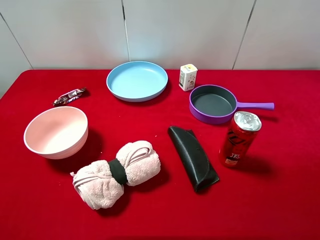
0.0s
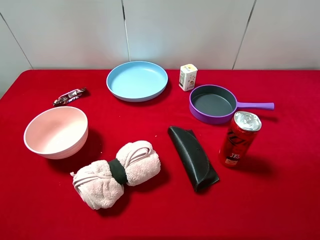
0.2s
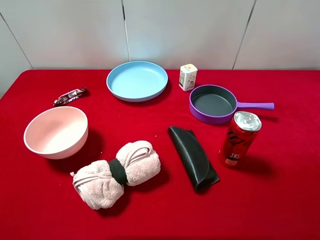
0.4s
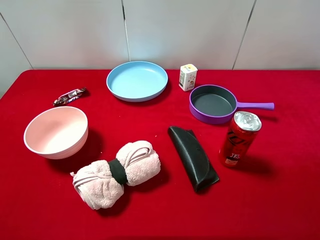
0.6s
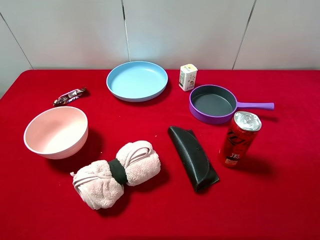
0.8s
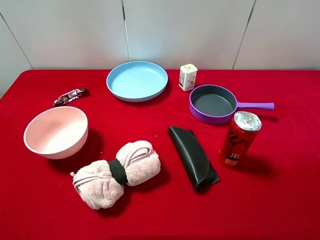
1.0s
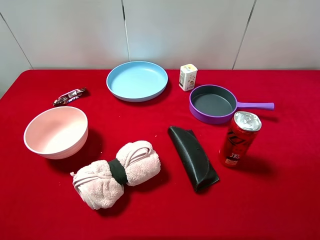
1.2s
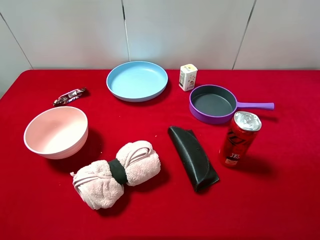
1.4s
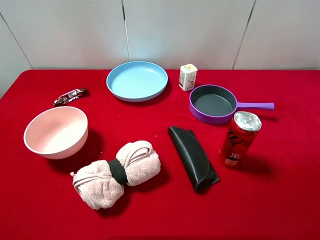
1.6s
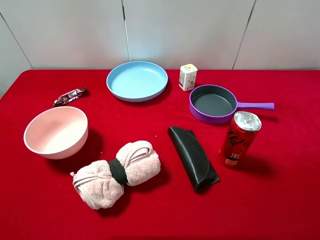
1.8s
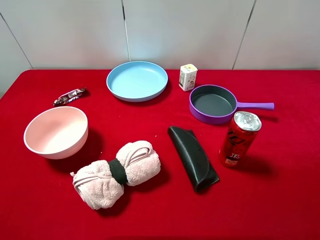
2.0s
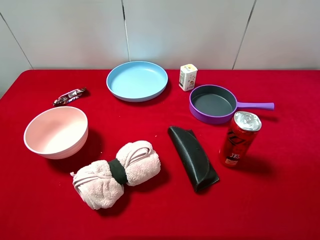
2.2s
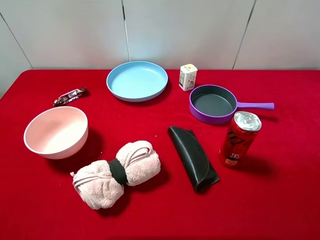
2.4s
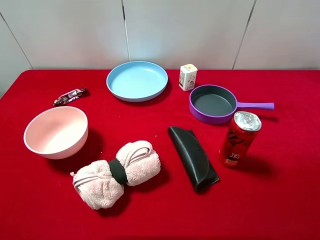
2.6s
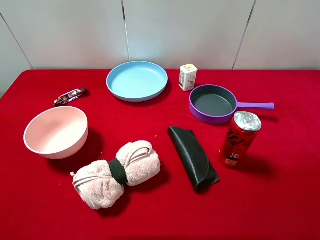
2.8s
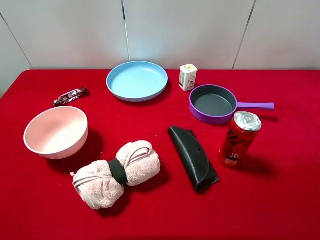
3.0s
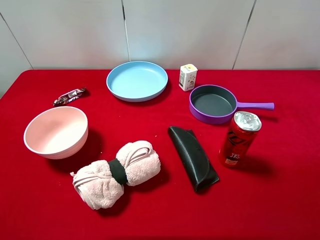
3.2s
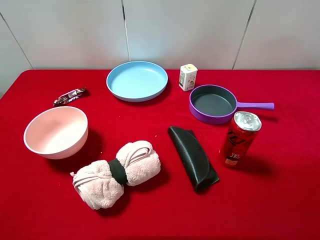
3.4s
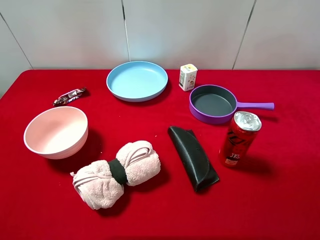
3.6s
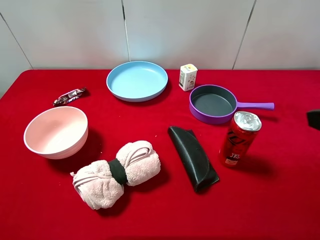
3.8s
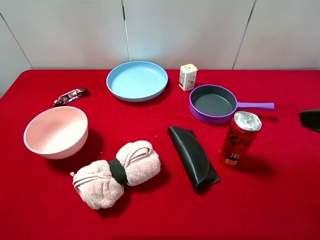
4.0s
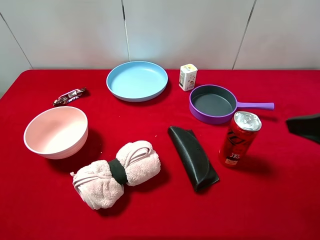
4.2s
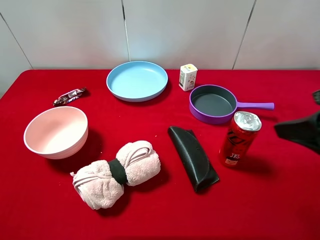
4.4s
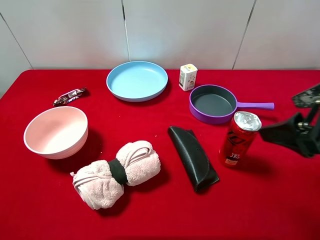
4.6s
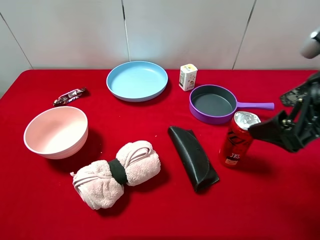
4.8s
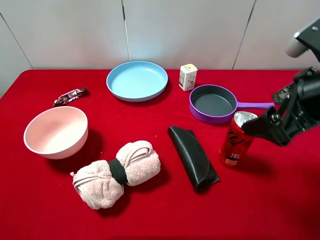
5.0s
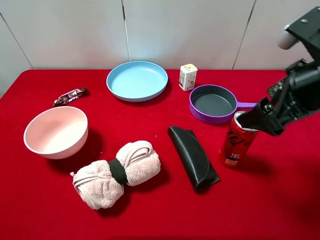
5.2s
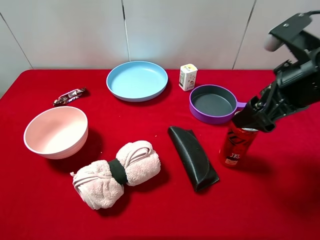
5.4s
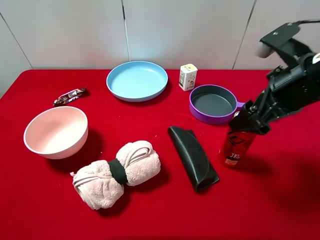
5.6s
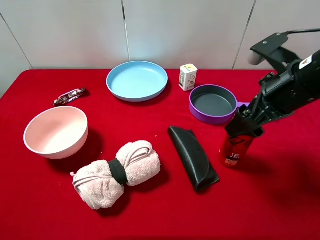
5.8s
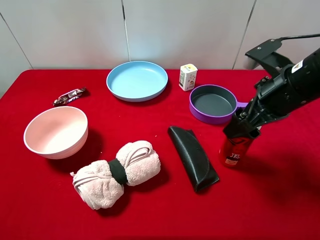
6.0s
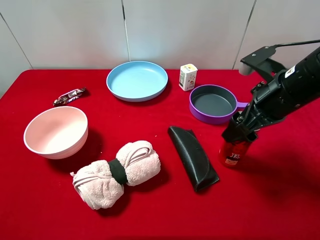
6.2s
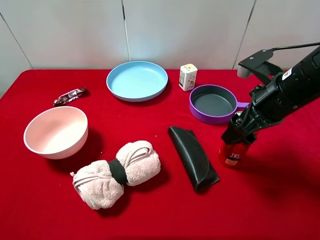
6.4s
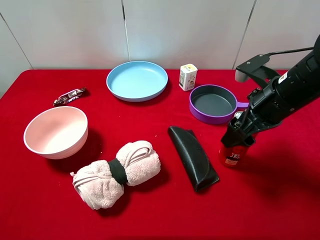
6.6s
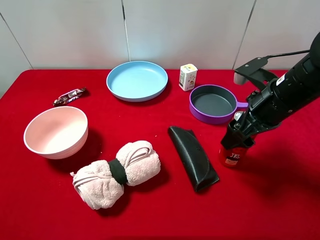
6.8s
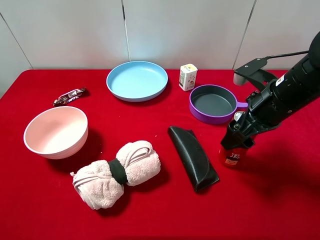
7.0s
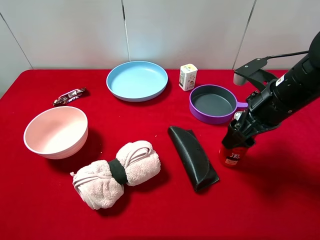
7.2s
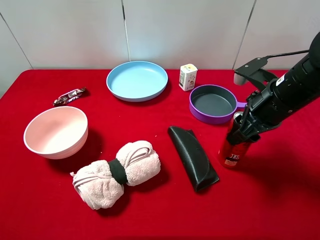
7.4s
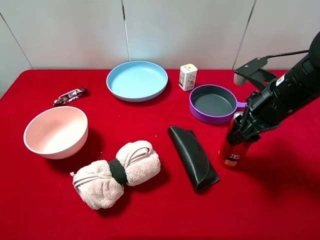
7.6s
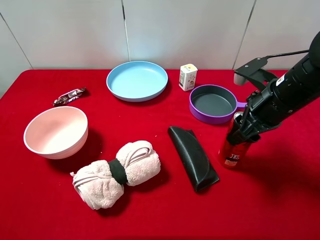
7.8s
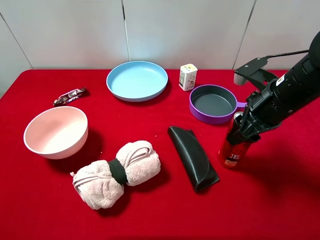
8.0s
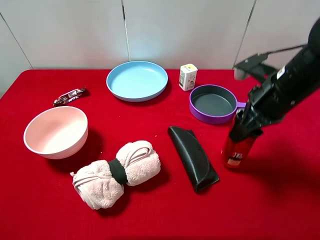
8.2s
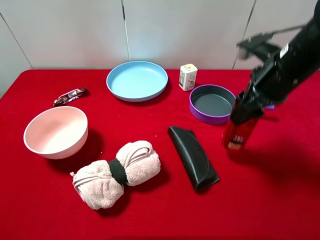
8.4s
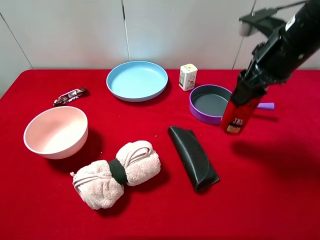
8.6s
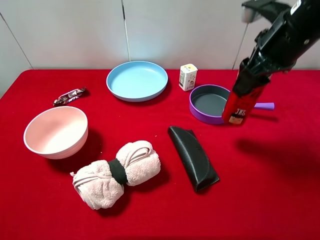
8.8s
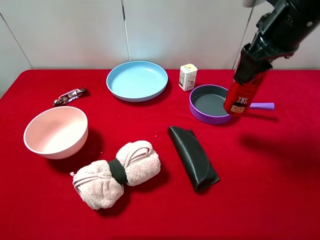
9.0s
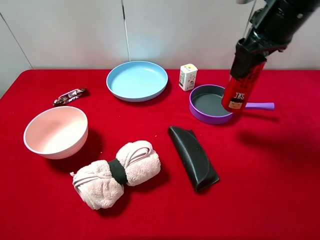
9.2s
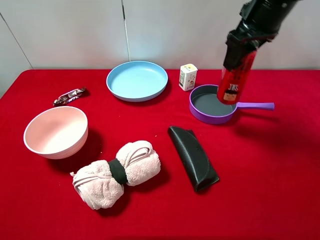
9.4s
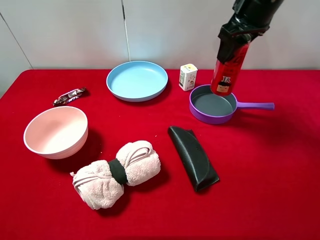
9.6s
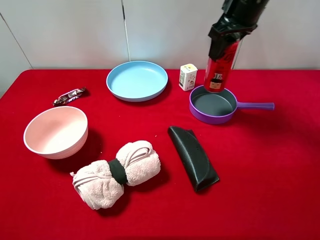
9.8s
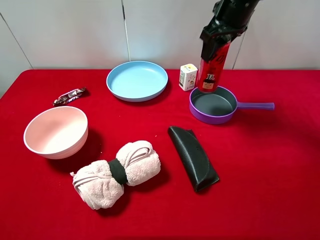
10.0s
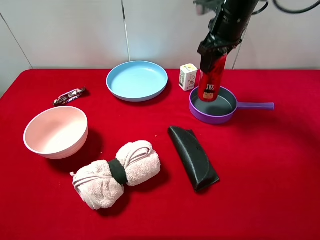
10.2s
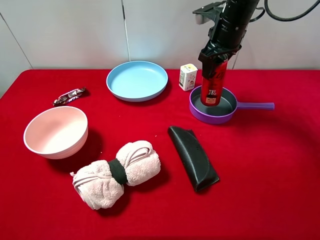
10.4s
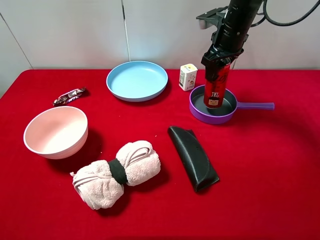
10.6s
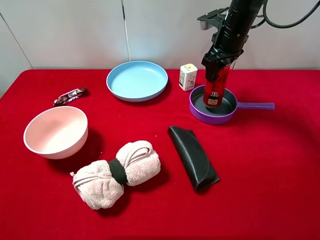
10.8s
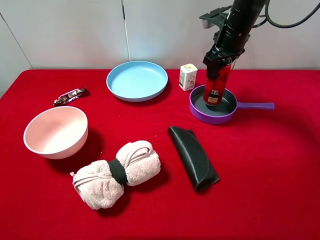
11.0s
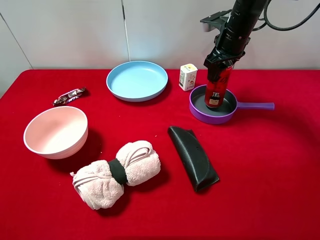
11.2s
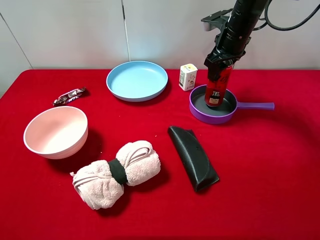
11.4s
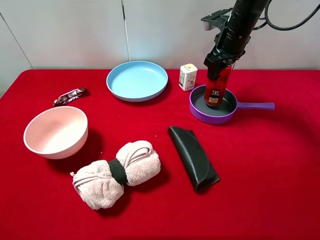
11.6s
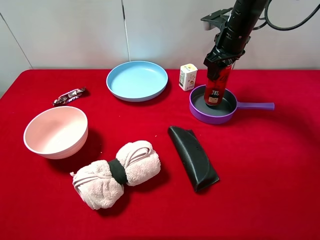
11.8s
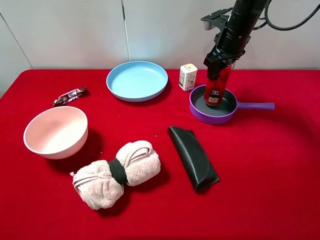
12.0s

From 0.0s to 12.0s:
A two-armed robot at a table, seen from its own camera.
Task of the whole recording: pick up an item with a gripper and place it in a random container on the desktop.
From 0.0s to 1.6s: Neither gripper changes place.
From 3.0s to 4.4s: The right gripper travels forward by roughly 10 cm.
From 4.4s to 6.0s: The right gripper travels forward and downward by roughly 10 cm.
From 6.0s to 7.6s: The right gripper closes up.
From 7.6s to 9.0s: The right gripper travels upward and forward by roughly 15 cm.
From 9.0s to 10.4s: The right gripper heads forward and downward, covering roughly 15 cm.
From 10.4s to 12.0s: There are only small adjustments of the grippers.

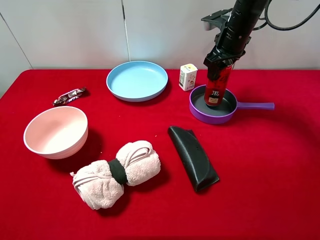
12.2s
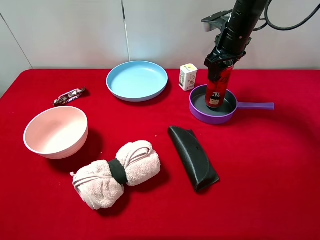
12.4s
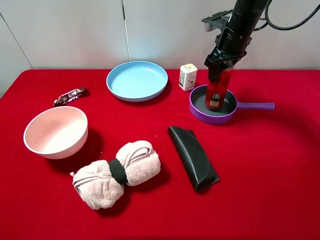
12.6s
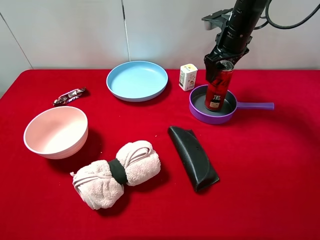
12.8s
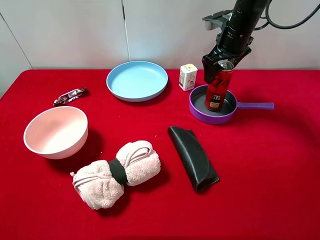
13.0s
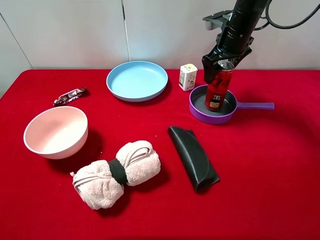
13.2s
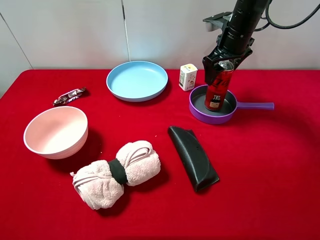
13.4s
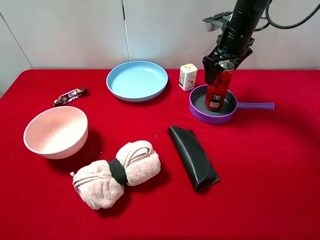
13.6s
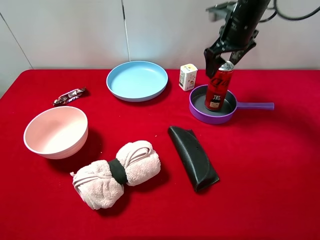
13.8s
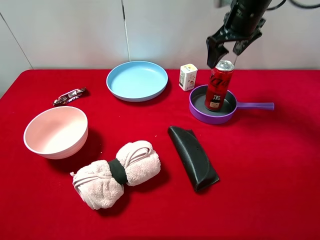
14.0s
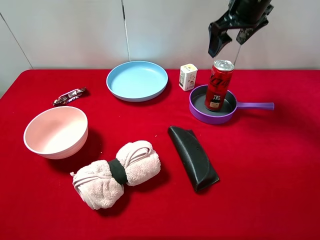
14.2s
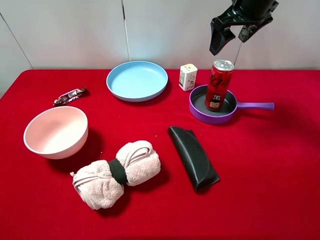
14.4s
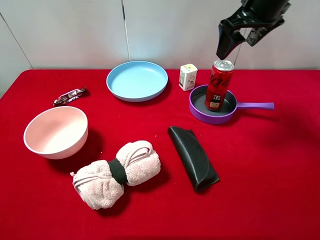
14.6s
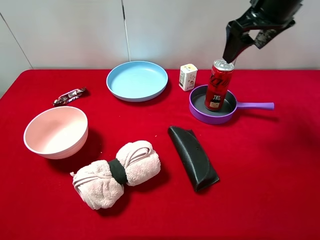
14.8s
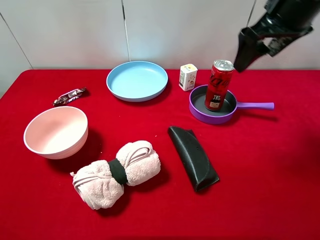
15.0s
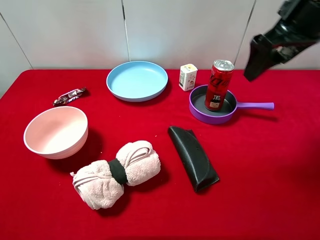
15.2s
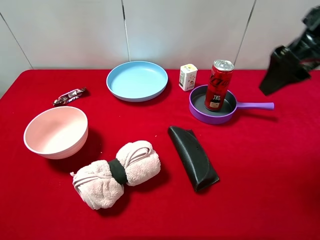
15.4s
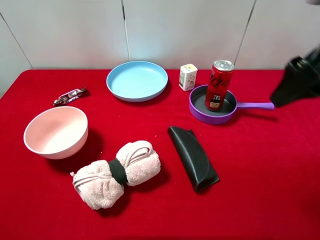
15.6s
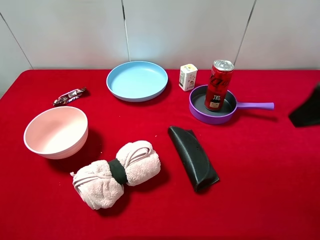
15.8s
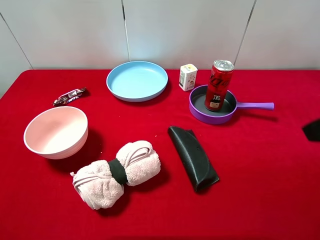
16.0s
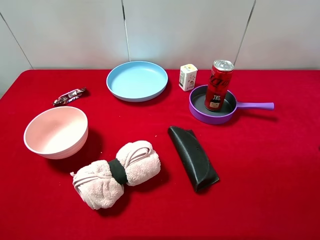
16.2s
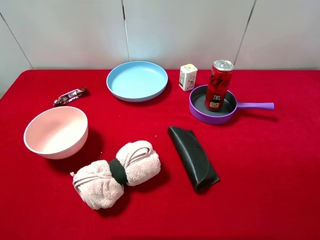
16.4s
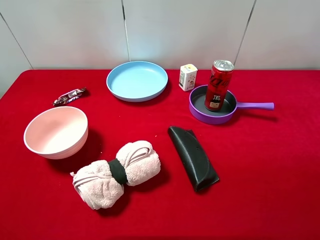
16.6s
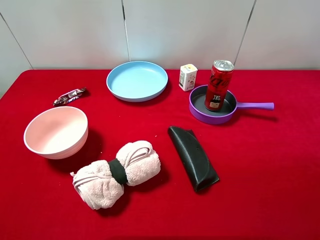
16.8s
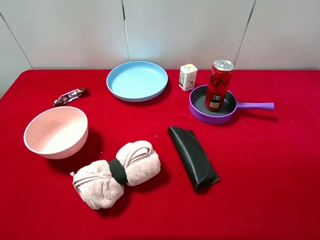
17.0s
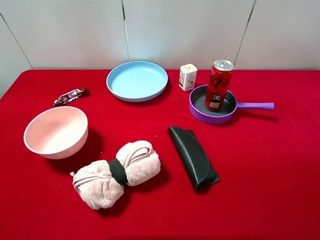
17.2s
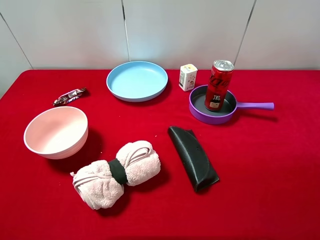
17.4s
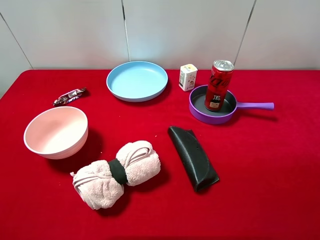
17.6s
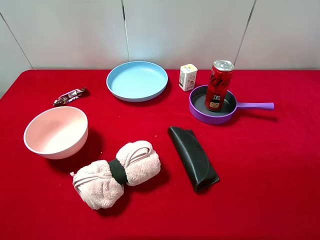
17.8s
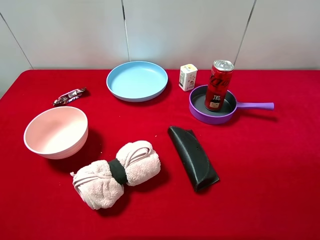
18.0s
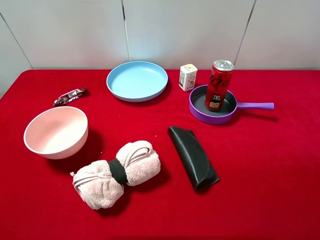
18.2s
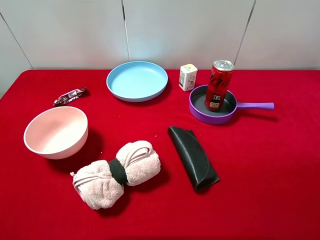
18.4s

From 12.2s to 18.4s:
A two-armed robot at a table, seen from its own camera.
Task of the whole recording: pick up an item with a gripper and place it in a random container on the desktop.
From 12.2s to 13.8s: The right gripper opens up.
From 13.8s to 15.4s: The right gripper travels backward and upward by some 20 cm.
From 15.4s to 16.8s: The right gripper travels backward by roughly 20 cm.
